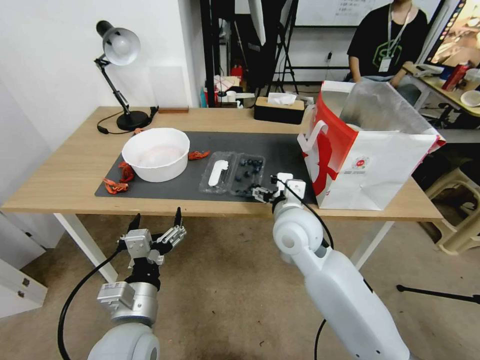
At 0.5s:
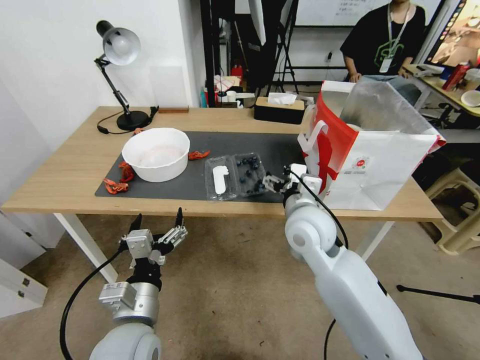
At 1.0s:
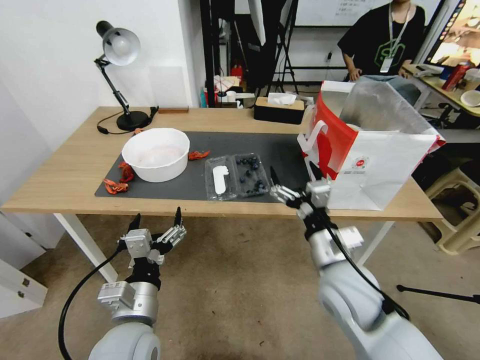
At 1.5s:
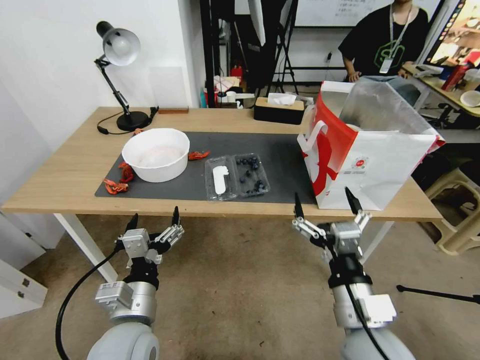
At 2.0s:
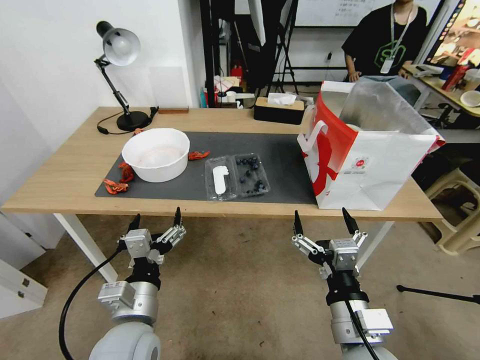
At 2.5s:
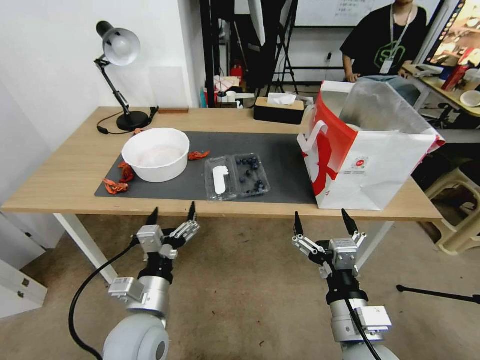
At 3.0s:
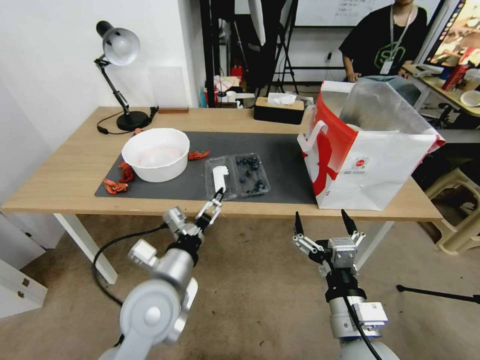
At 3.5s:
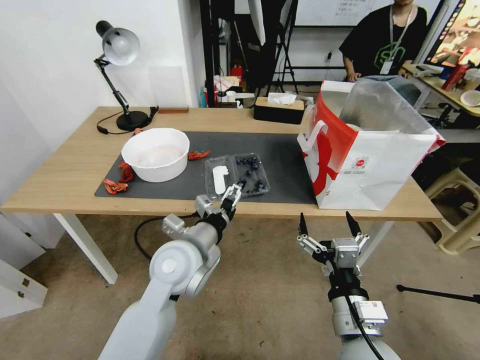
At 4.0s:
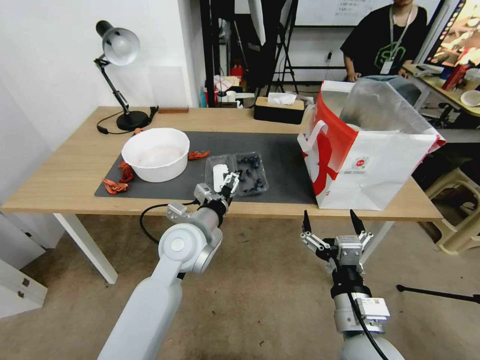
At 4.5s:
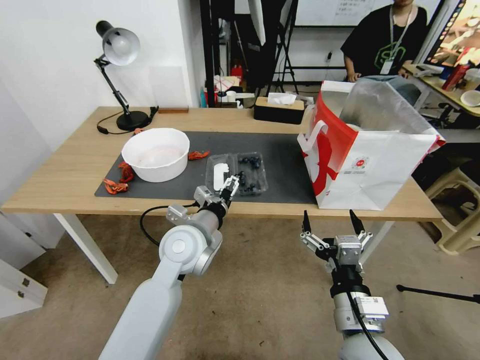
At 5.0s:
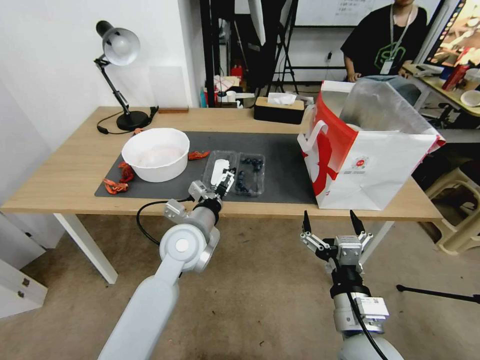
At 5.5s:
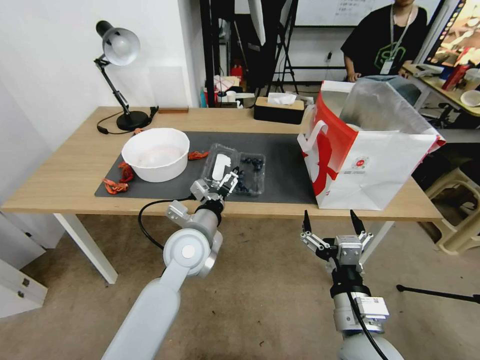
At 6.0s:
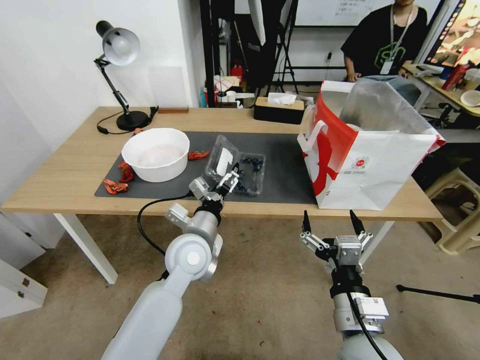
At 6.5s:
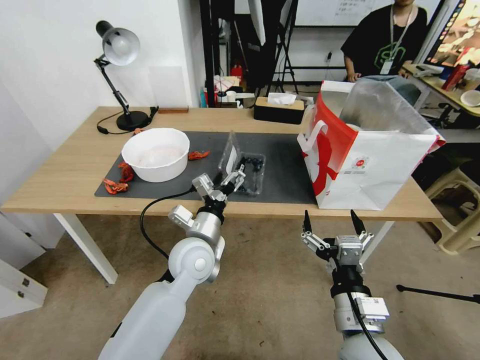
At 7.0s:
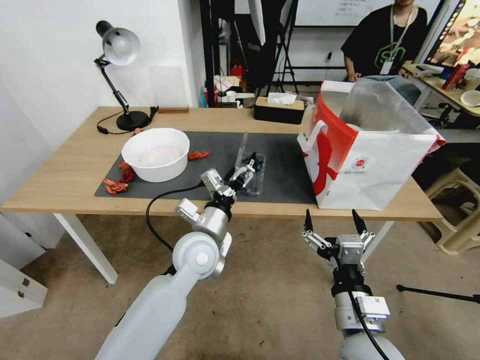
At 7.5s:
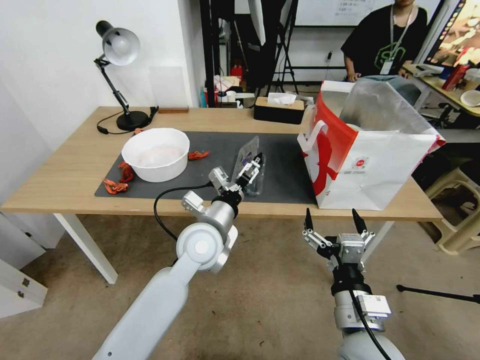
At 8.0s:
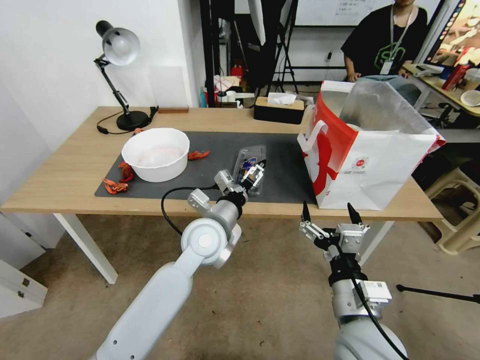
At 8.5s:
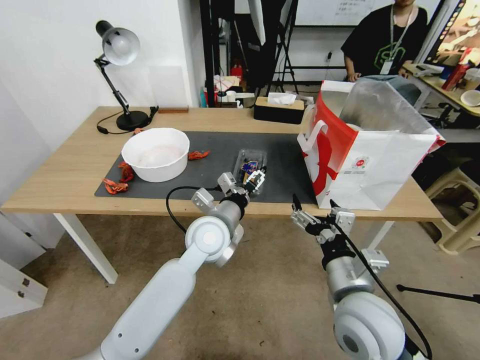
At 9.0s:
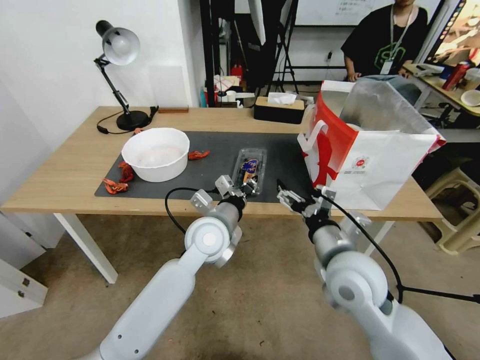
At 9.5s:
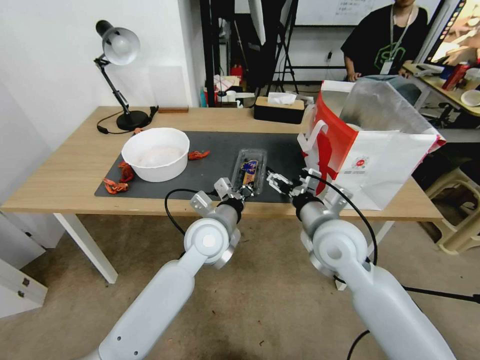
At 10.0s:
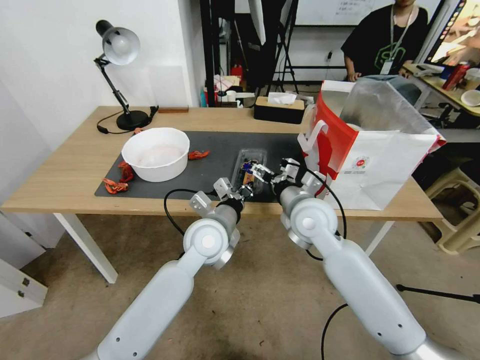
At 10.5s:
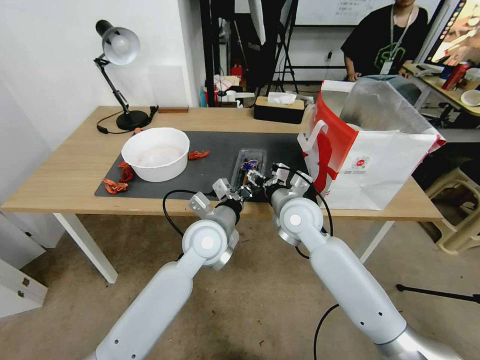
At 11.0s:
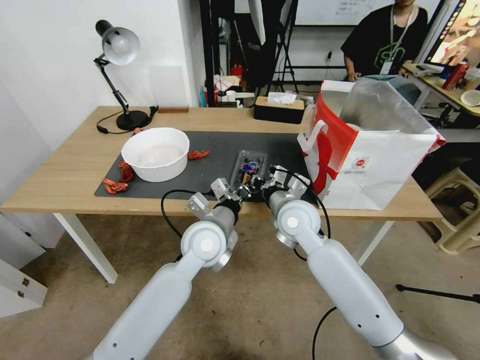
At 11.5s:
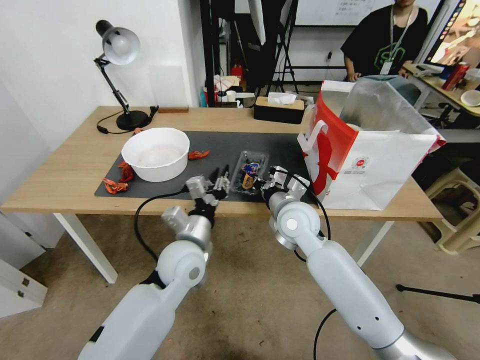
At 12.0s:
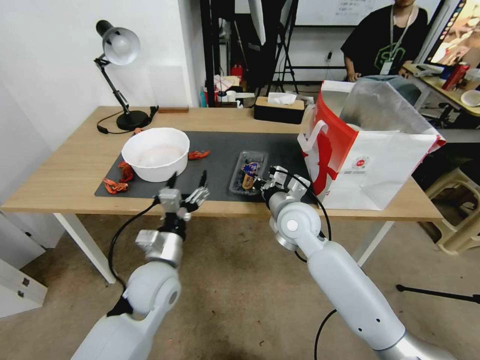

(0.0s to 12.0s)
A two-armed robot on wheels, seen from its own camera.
Task of the whole recording: Close the takeout container lid, then place the container into the takeout bag.
0.0s - 2.0s: The right gripper goes approximately 20 cm backward.
2.0s - 4.0s: The left gripper goes some 20 cm forward and to the right.
6.0s - 8.0s: The grippers make only small movements.
8.0s - 10.0s: The left gripper closes its fingers, while the right gripper heads forward, covering approximately 20 cm.
10.0s - 12.0s: The left gripper heads to the left and backward, covering some 15 cm, and opens up, while the right gripper closes.

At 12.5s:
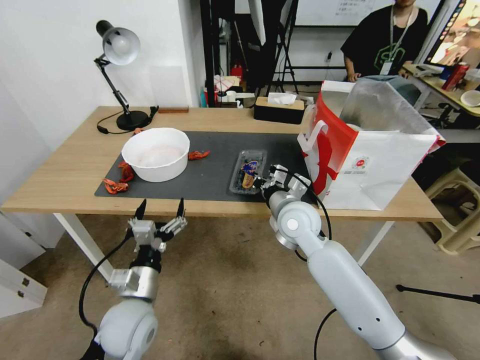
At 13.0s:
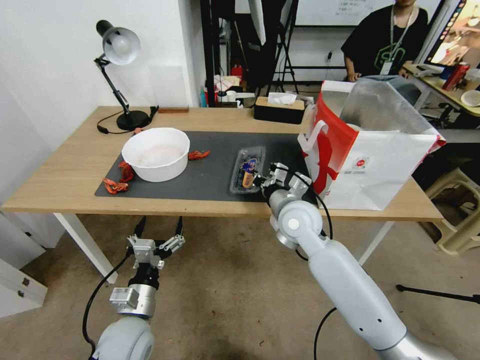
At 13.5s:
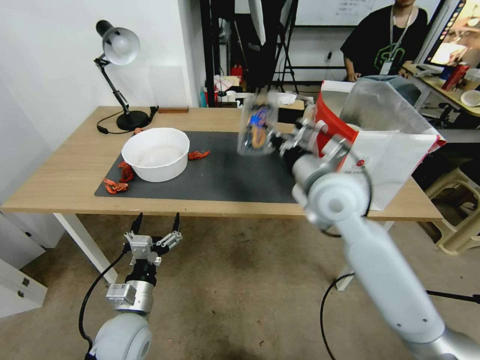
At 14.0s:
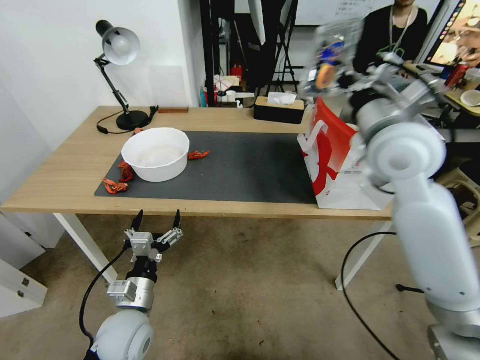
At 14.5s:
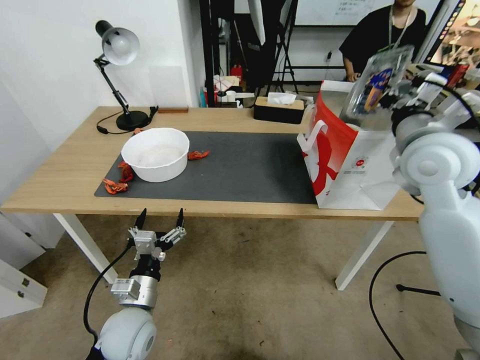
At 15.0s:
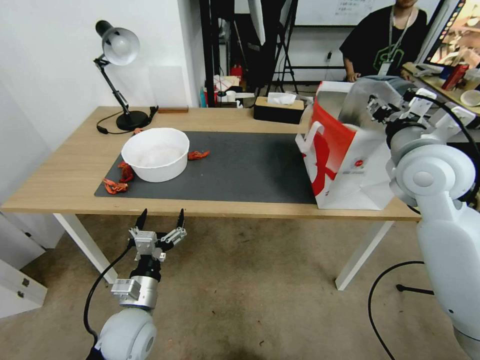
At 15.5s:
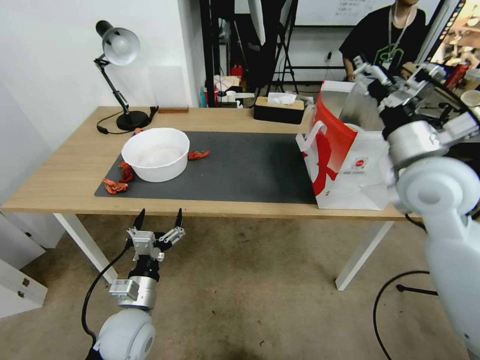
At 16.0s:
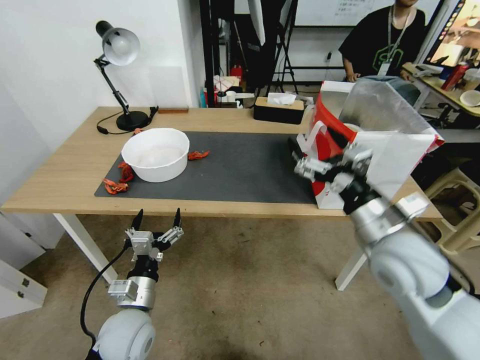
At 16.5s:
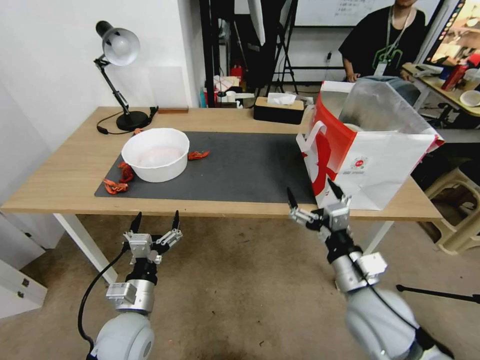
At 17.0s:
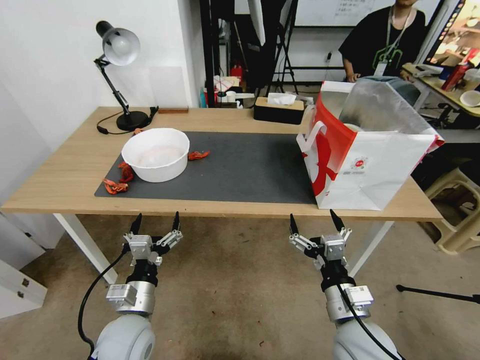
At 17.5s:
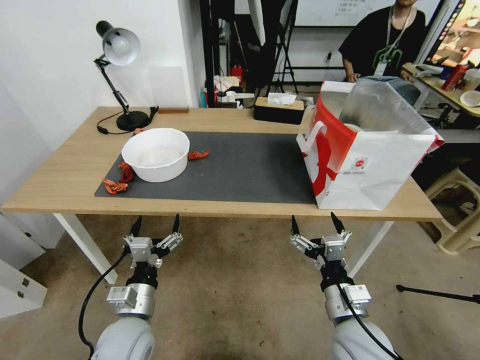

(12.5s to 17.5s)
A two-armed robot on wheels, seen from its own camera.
Task of the whole recording: Close the takeout container lid, then place the container into the takeout bag.
12.5s - 15.0s: The right gripper travels upward and to the right by some 25 cm, and opens its fingers.
15.0s - 17.5s: The right gripper moves downward and backward, about 30 cm, and opens.
